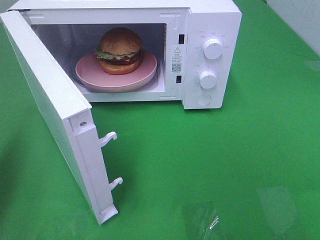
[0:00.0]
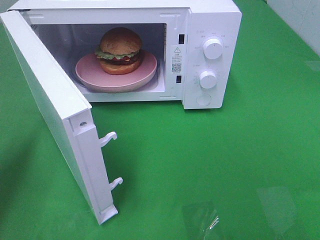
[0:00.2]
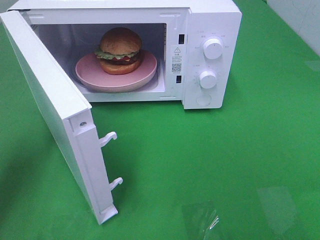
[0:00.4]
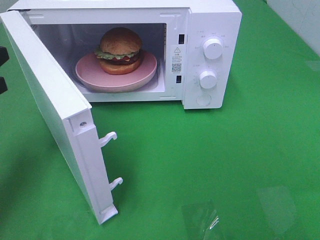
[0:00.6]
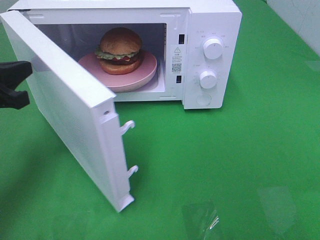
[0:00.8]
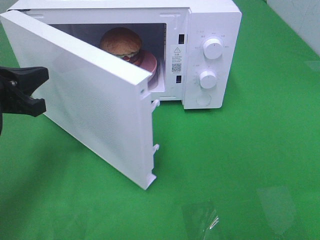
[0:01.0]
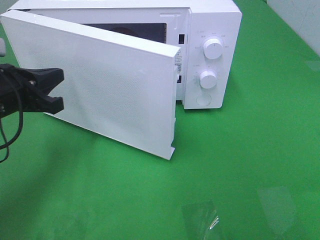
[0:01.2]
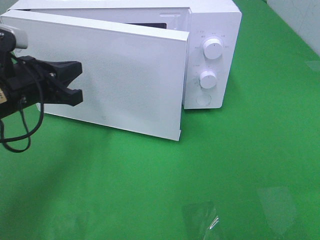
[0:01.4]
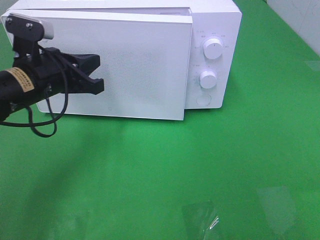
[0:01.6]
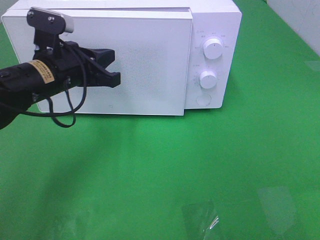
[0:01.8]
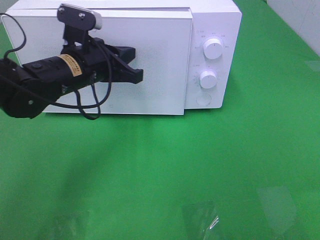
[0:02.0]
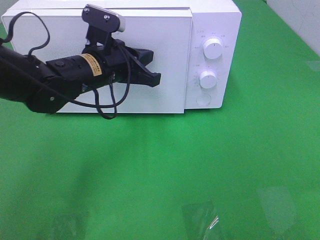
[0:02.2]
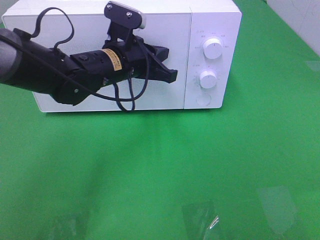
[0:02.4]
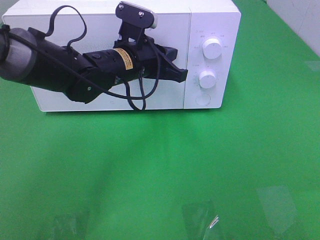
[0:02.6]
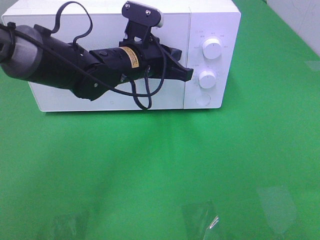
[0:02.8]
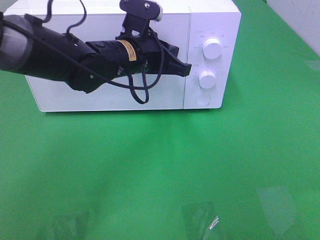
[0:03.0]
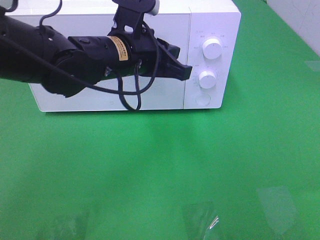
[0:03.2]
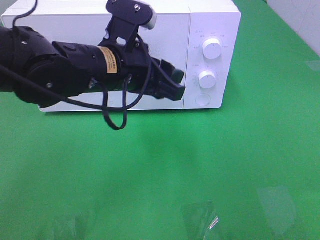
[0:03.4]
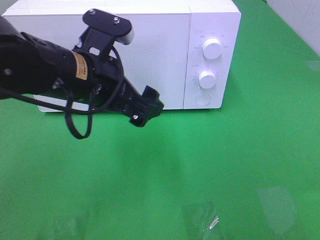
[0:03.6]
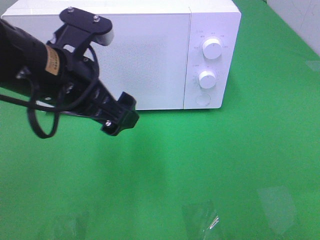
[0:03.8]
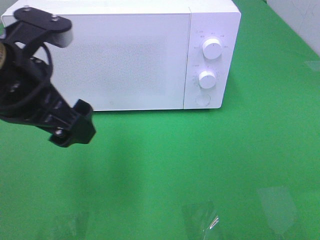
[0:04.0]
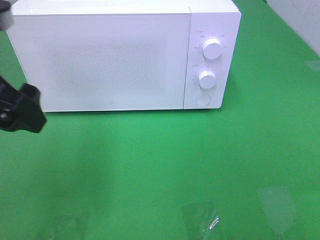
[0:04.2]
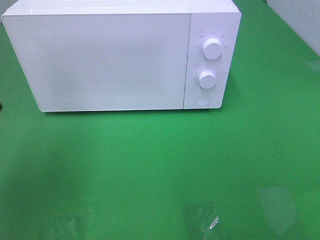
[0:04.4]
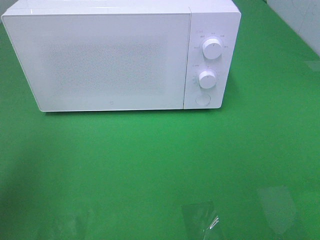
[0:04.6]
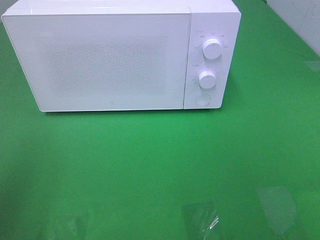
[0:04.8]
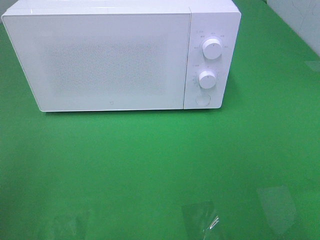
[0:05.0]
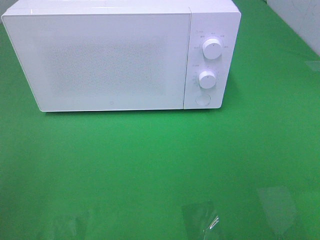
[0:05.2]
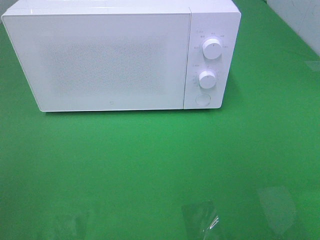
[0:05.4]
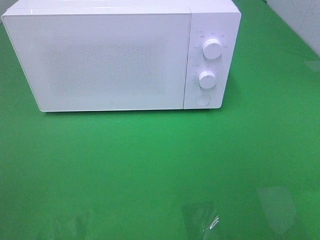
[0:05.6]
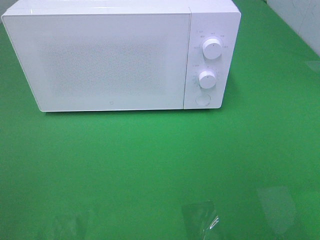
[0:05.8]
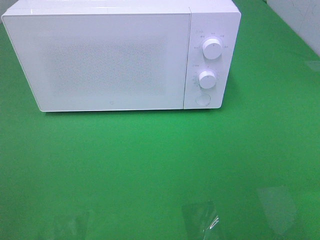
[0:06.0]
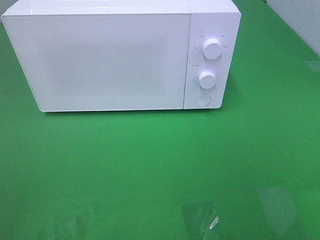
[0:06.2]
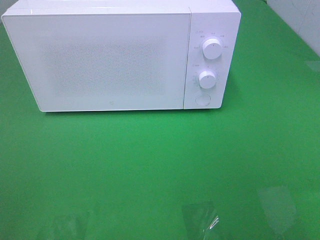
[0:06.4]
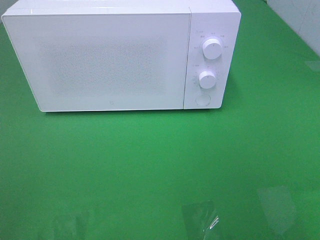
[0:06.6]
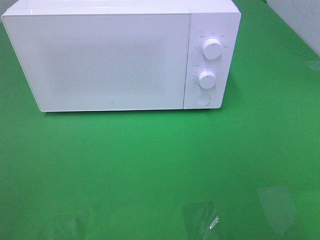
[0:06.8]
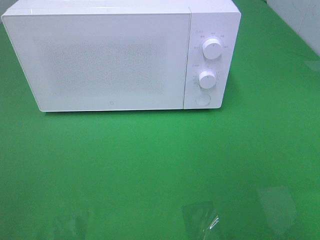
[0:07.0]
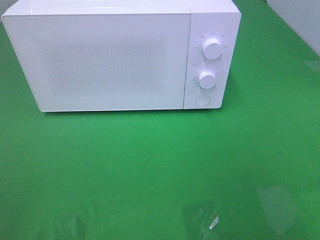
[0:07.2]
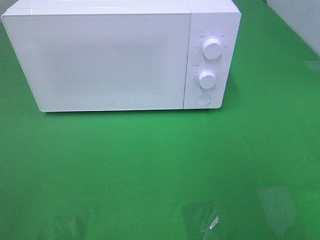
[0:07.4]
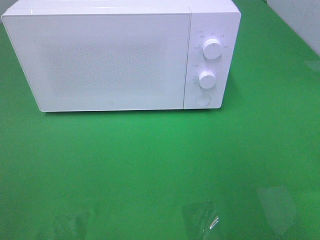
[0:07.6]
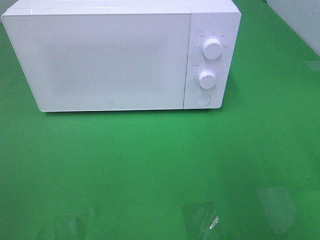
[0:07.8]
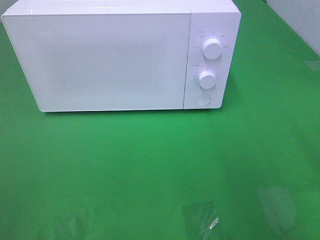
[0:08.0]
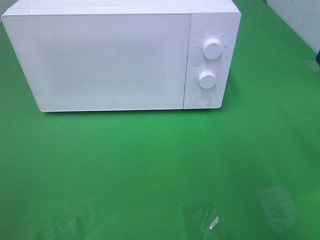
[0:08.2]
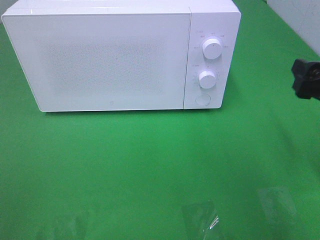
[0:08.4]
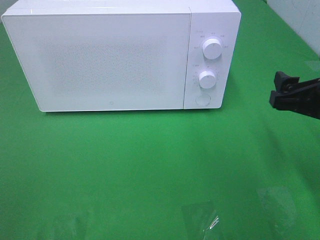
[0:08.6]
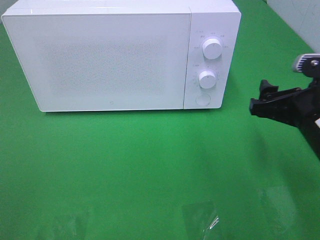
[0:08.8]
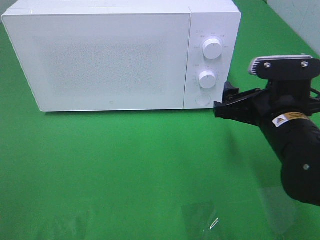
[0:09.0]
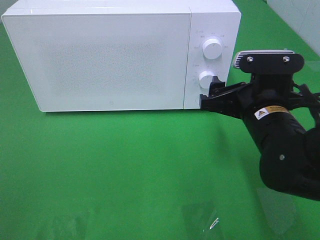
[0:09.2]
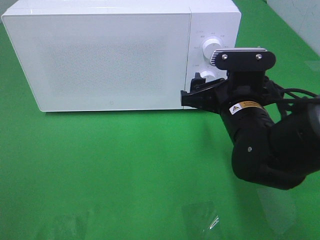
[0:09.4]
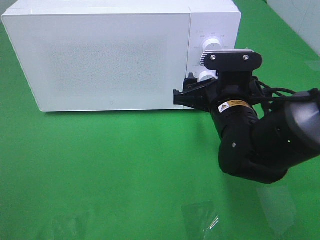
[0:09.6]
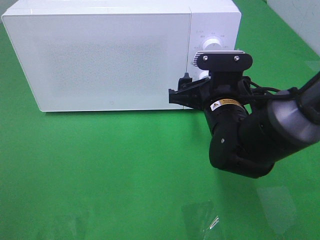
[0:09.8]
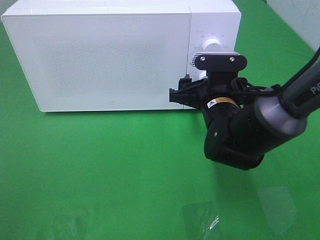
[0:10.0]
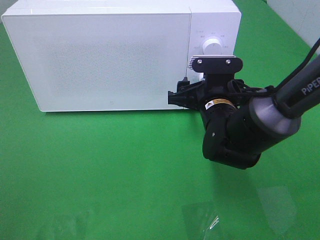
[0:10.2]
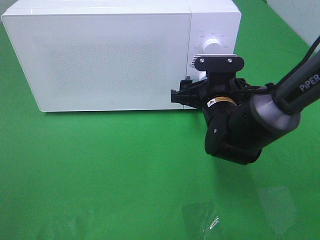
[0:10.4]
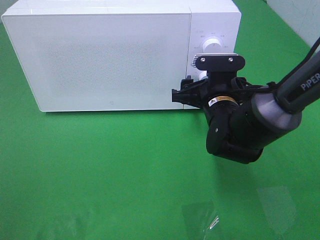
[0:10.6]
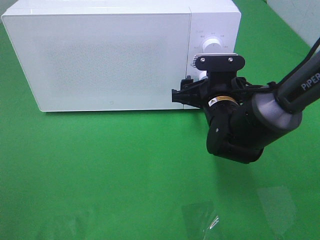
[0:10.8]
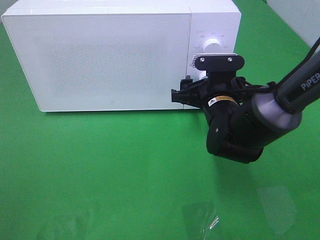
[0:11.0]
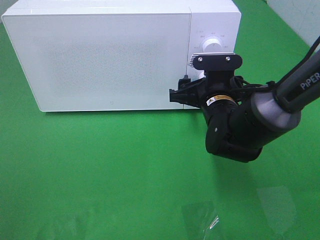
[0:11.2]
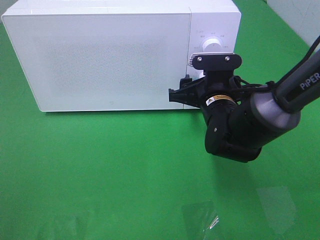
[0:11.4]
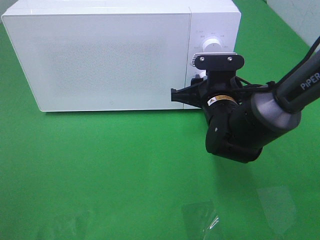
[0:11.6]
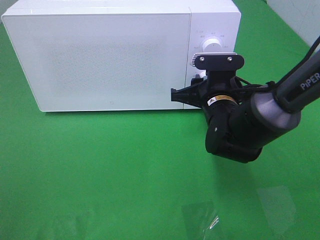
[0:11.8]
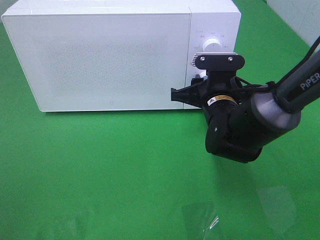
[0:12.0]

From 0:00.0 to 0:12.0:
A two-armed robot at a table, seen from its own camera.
Task of the whole recording: Heat the burger.
Step, from 0:00.0 to 0:03.0: Left hand: close the microwave door.
From 0:00.0 to 0:01.6: The left gripper goes roughly 20 cm to the right, forward and downward.
From 0:01.6 to 0:03.0: The left gripper goes some 15 cm to the right.
From 0:03.0 to 0:04.4: The left gripper goes approximately 30 cm to the left, backward and upward, and opens.
From 0:07.6 to 0:09.0: The right gripper travels downward, to the left and forward by roughly 20 cm.
From 0:09.0 to 0:10.4: The right gripper shifts approximately 10 cm forward and to the left.
From 0:10.4 to 0:12.0: The right gripper closes its fingers.

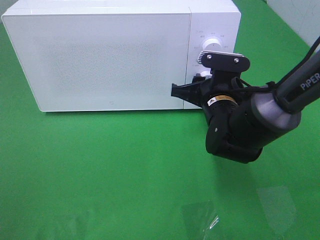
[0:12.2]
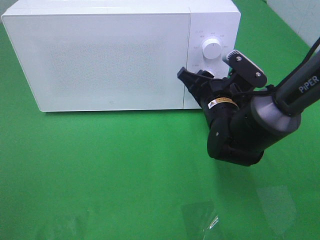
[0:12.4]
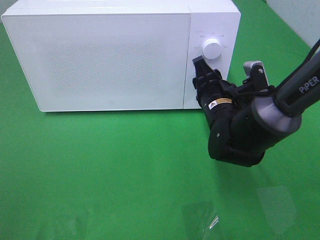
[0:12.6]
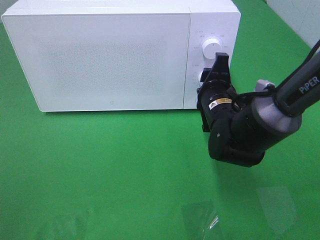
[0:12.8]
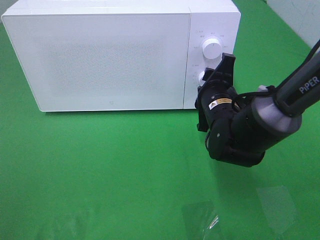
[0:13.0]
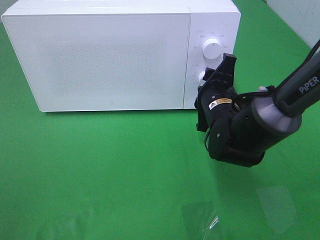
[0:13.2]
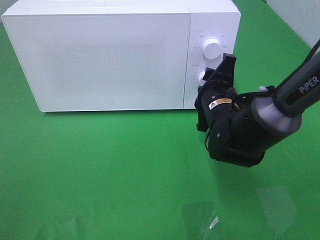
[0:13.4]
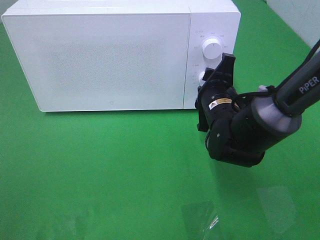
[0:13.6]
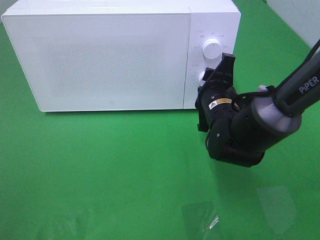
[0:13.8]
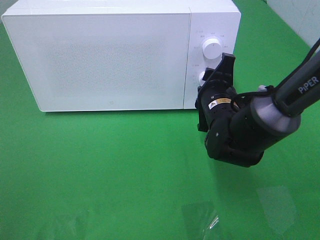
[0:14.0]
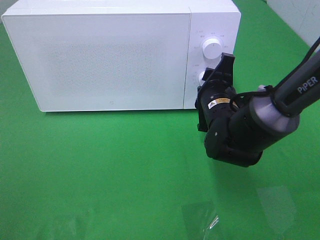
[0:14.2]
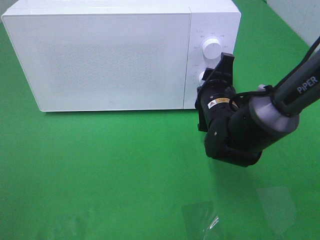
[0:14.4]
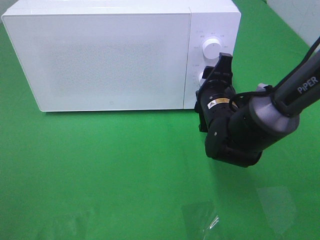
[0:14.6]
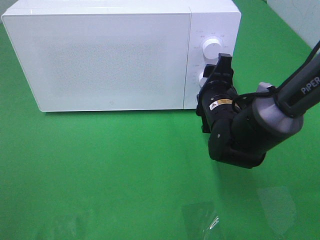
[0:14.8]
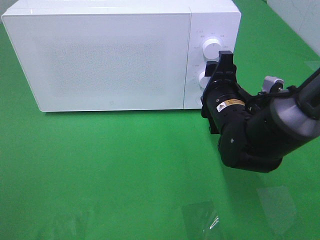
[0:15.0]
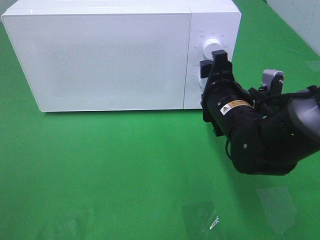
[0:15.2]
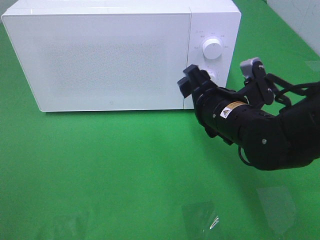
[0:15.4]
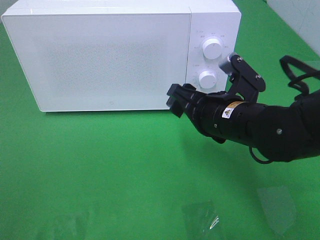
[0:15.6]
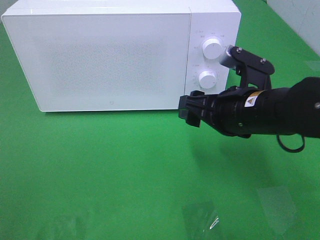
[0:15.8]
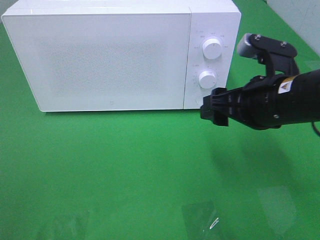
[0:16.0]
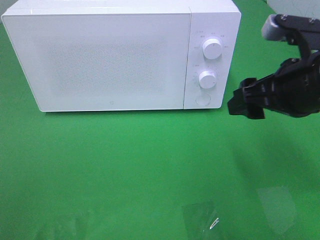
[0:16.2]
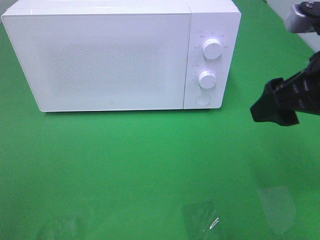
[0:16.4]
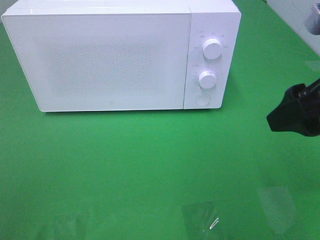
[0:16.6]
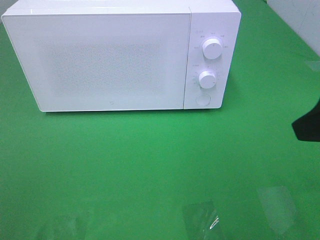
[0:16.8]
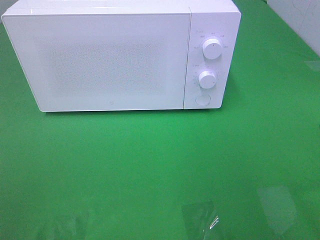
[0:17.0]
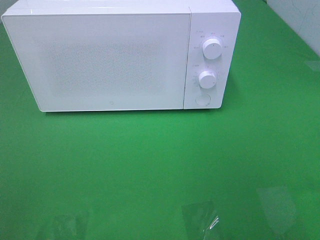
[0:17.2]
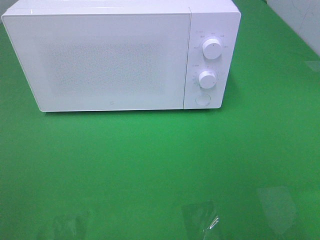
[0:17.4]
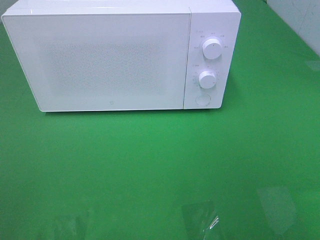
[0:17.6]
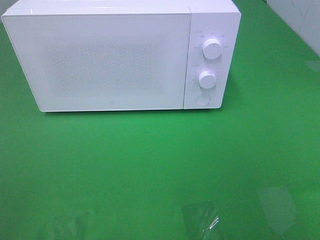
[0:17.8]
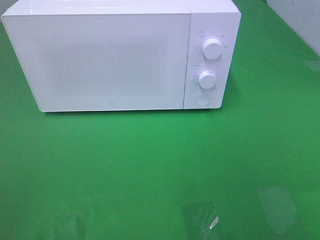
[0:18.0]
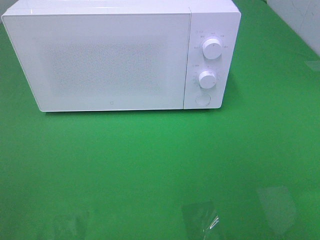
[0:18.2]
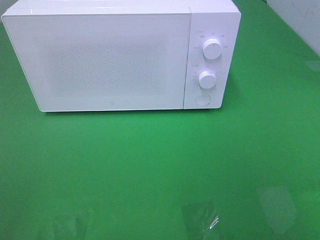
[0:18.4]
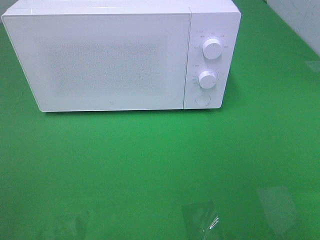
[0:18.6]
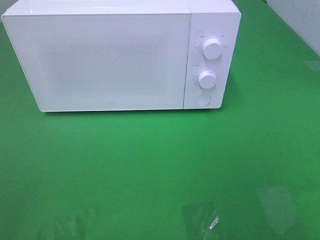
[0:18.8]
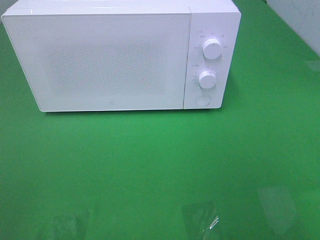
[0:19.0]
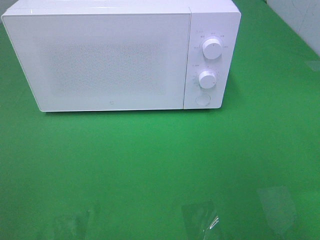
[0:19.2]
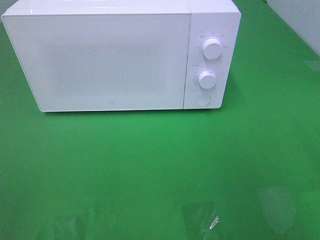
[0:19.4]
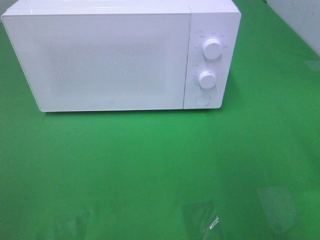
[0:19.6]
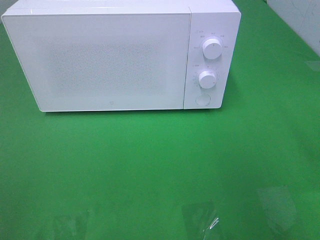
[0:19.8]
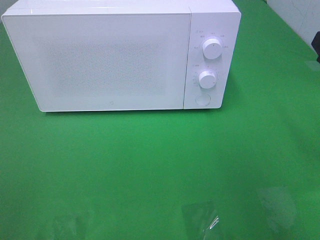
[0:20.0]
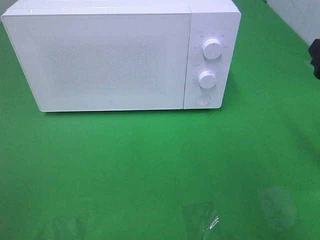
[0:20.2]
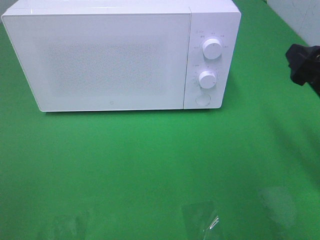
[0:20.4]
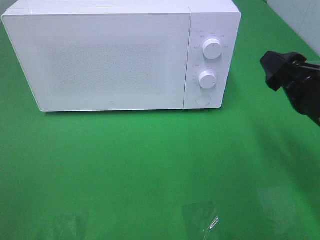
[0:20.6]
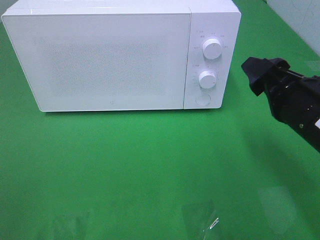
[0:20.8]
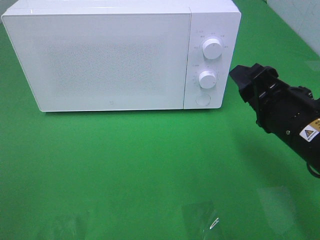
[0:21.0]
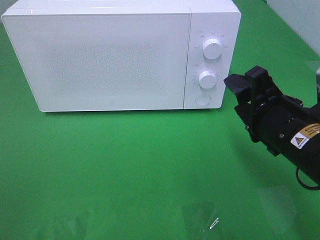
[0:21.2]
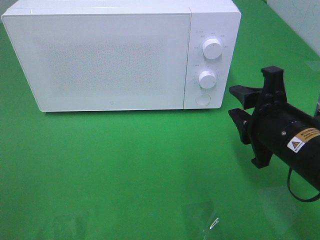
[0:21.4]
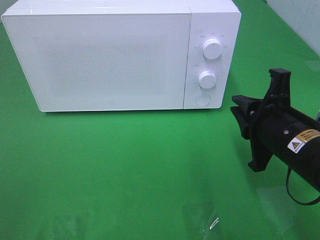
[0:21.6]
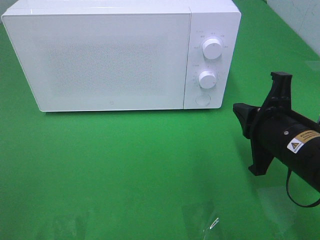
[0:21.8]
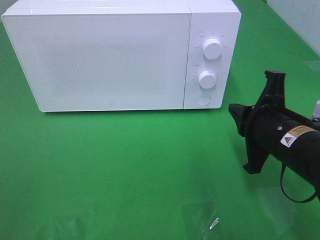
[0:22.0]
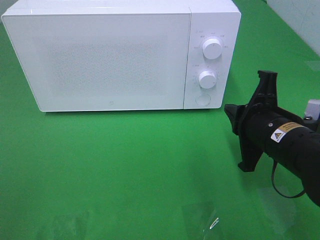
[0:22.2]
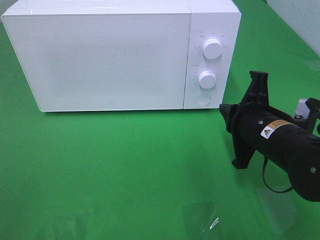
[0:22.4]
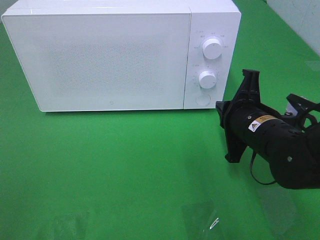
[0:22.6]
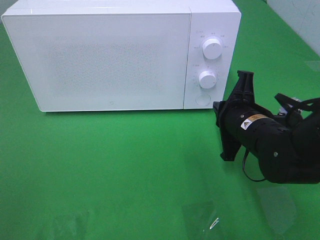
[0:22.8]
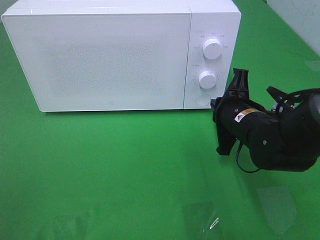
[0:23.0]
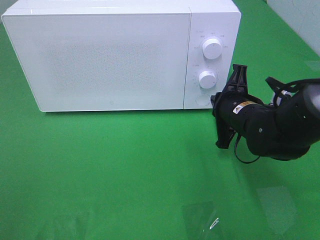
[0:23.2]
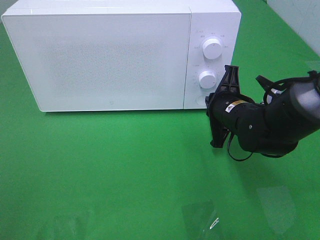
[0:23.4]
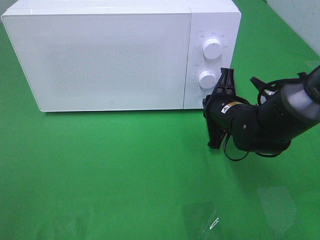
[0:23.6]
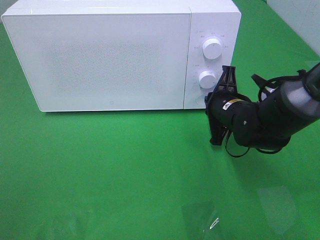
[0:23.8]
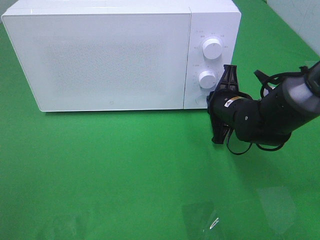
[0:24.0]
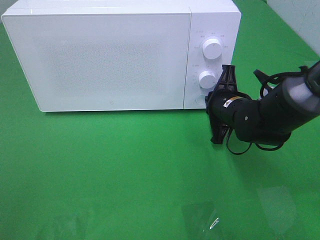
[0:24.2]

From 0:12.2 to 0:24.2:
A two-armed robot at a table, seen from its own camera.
Task of the whole recording: Heat the burger.
Step, from 0:12.2 to 0:14.4: Right hand: twist timer button.
From 0:15.2 to 0:16.6: The right gripper goes roughly 20 cm upward, backward and to the right.
From 0:16.6 to 0:18.2: The right gripper heads backward and to the right, covering some 20 cm.
From 0:19.8 to 0:21.2: The right gripper moves to the left and downward, about 15 cm.
From 0:21.2 to 0:22.6: The right gripper goes approximately 5 cm forward, and closes up.
From 0:22.6 to 0:24.2: The right gripper is displaced forward by some 10 cm.
